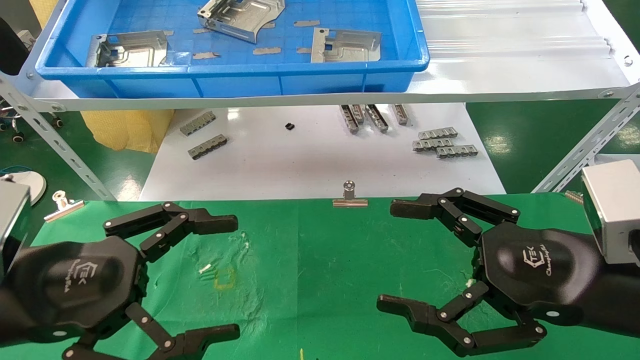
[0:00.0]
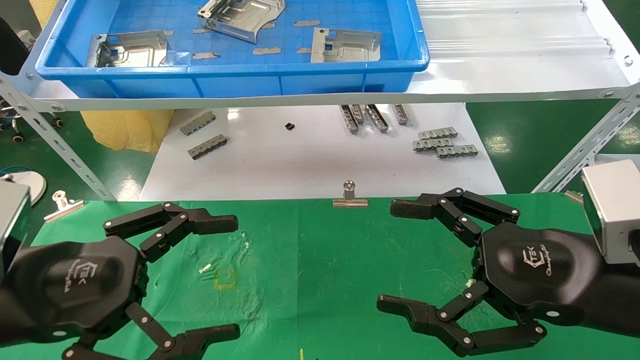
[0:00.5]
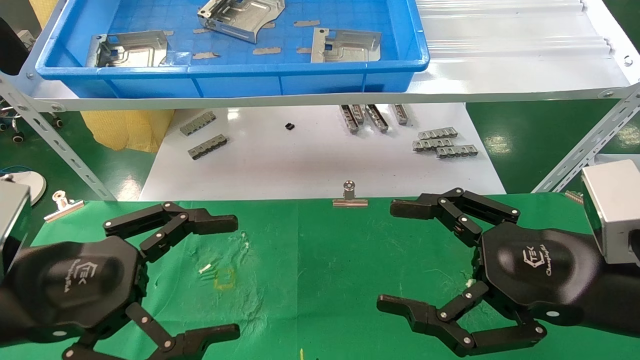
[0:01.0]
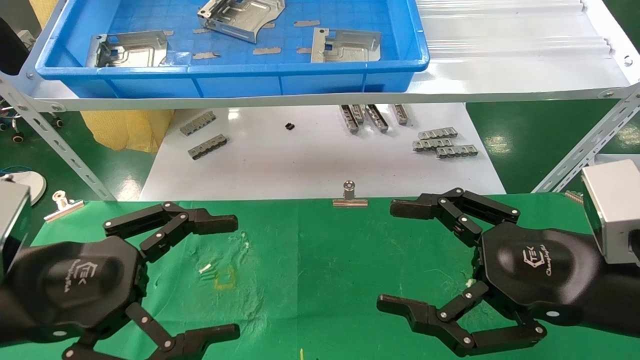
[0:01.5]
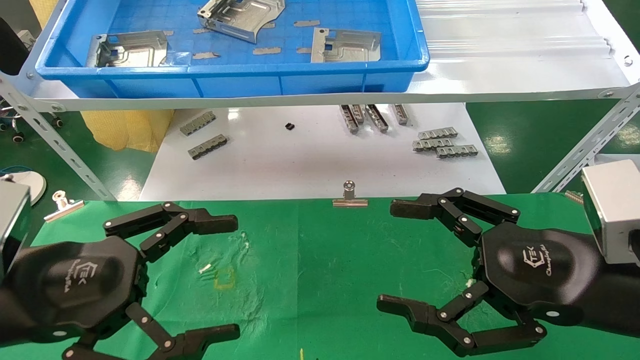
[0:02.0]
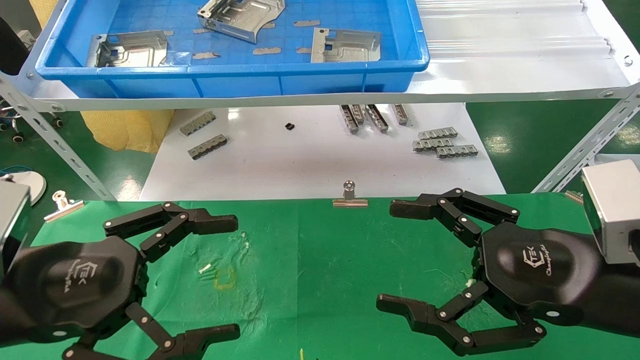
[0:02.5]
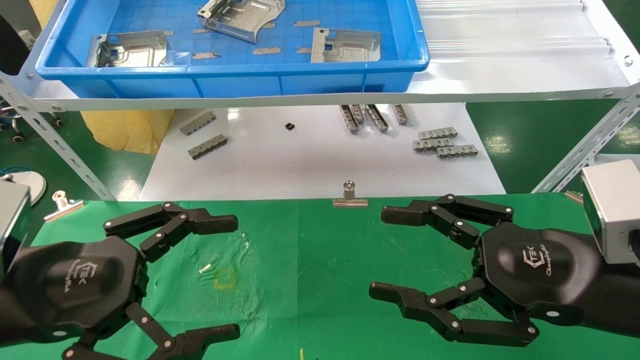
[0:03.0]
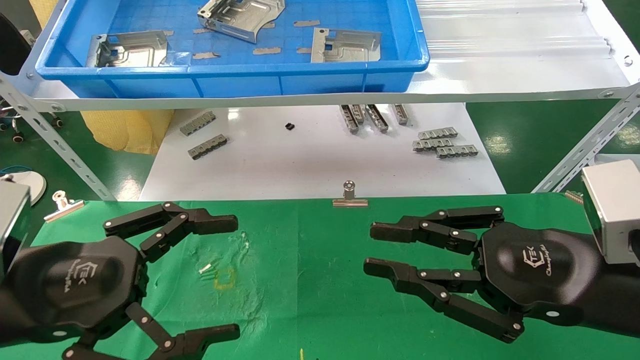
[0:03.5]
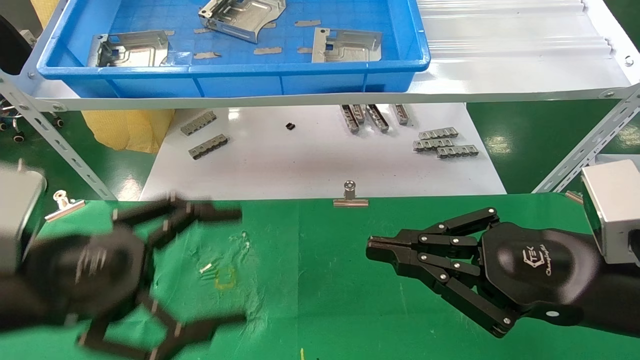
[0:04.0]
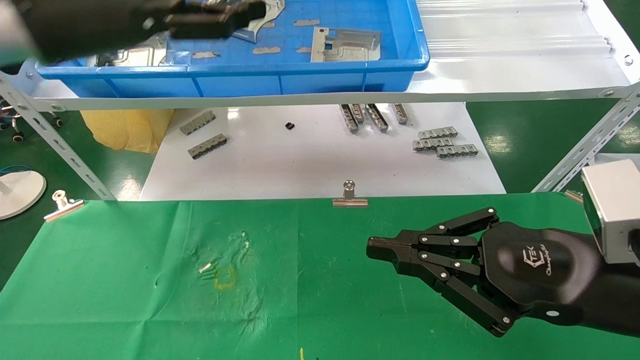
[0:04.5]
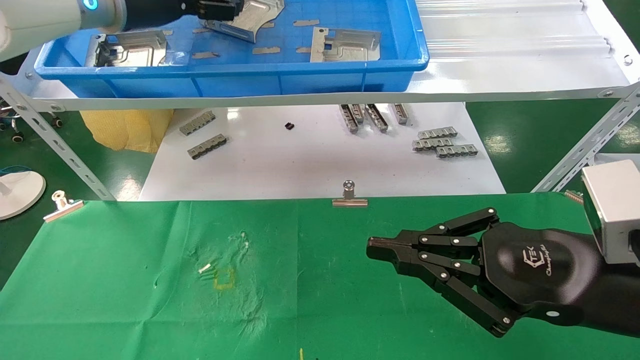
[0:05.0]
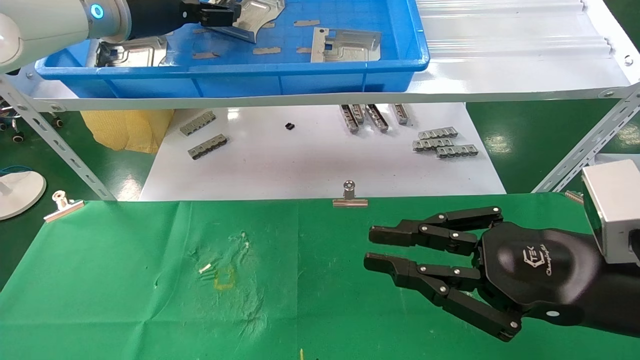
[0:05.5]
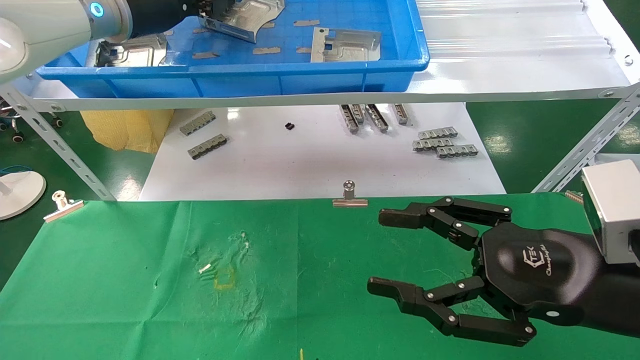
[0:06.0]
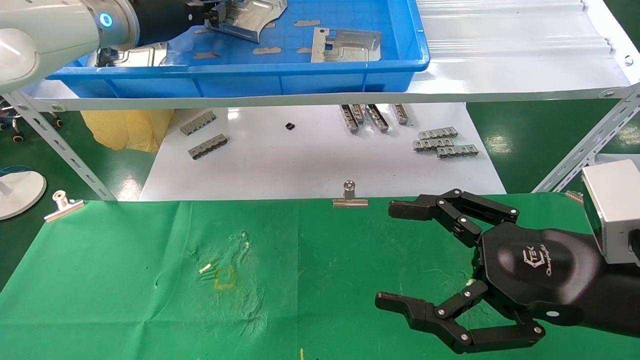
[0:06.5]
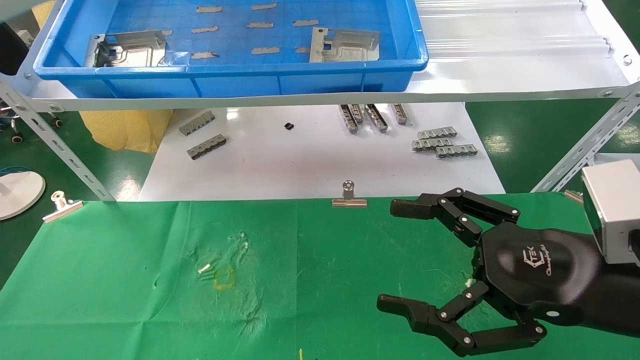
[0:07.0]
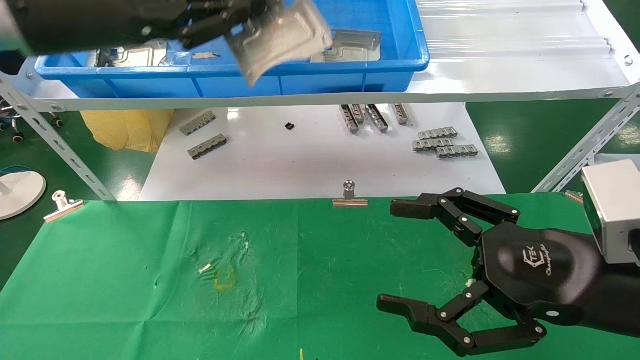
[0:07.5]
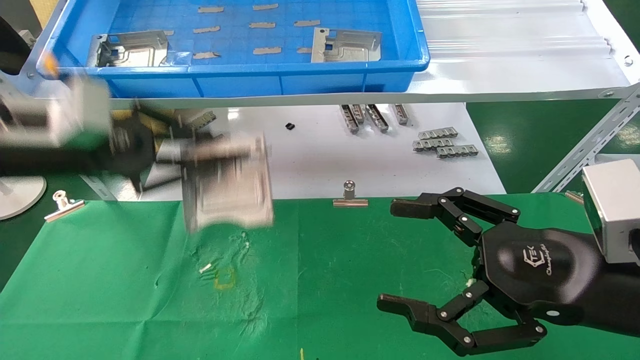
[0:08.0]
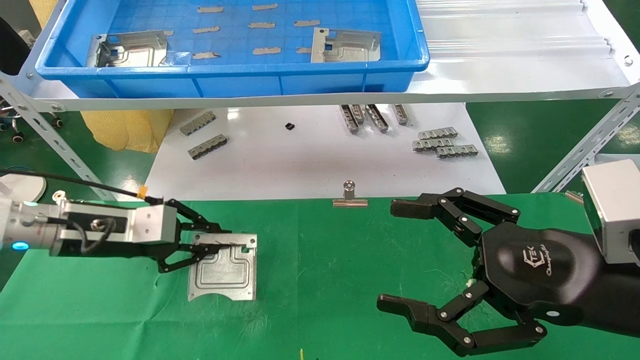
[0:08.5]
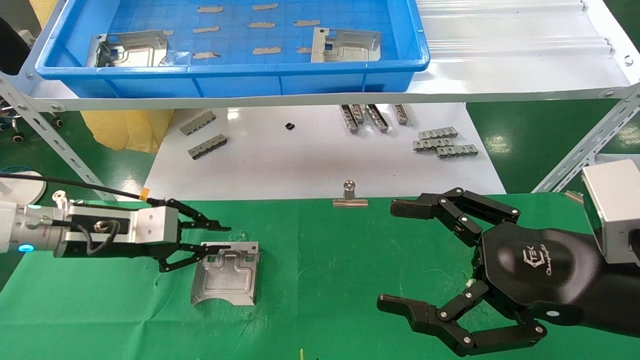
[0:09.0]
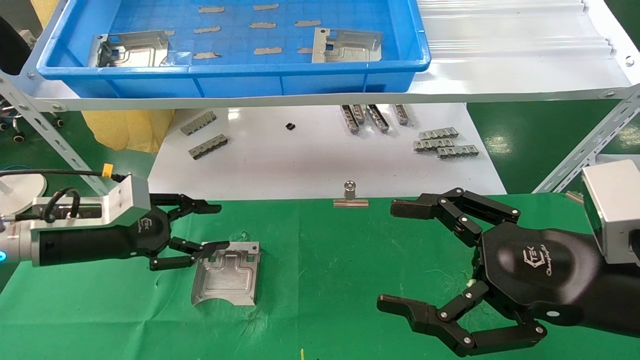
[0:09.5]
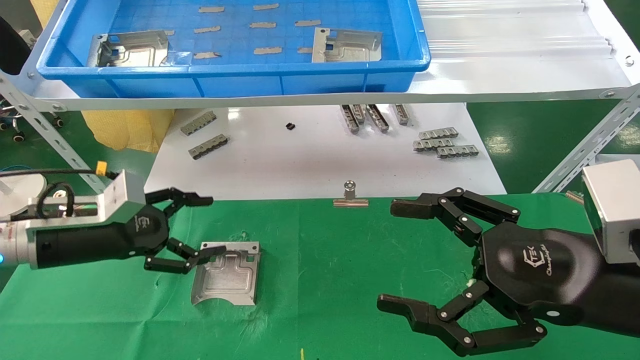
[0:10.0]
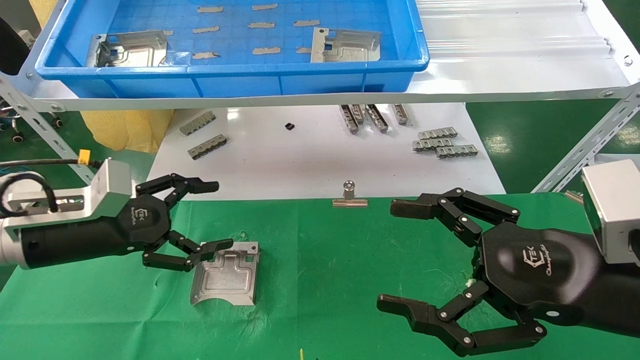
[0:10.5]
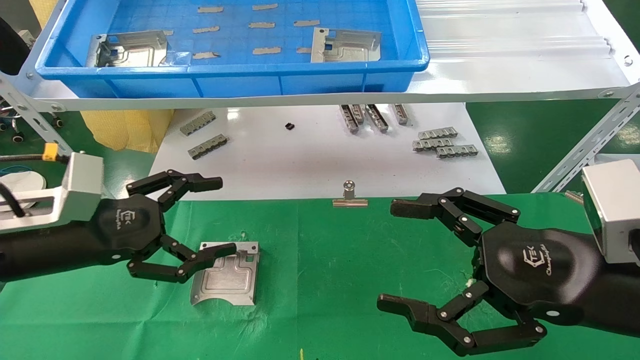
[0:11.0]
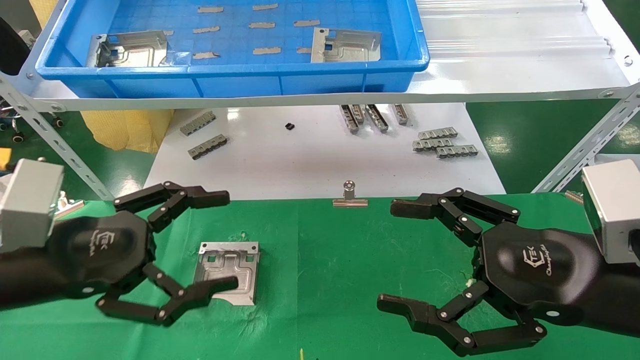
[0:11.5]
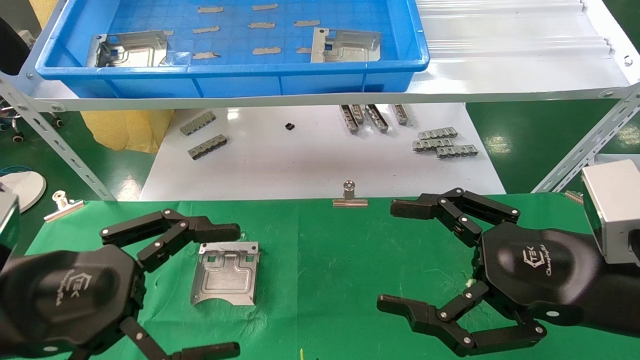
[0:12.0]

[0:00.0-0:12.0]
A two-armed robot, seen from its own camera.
Task of the whole recording: use the mechanical arm to pick up the parts and place them on the table.
Step, 0:04.5 to 0:06.0: Pick up the hard drive bracket from the feeding area.
Step, 0:06.5 to 0:09.0: Place the hard drive bracket into the box.
0:00.0 to 0:02.0: The two grippers keep their place.
0:02.0 to 0:04.0: The right gripper closes up.
0:04.0 to 0:06.0: The right gripper opens up. The left gripper goes approximately 30 cm forward and upward, and closes up.
0:06.0 to 0:08.0: The left gripper shifts approximately 20 cm downward, backward and to the left, and closes its fingers, while the right gripper opens up.
0:08.0 to 0:10.0: The left gripper heads downward, covering approximately 10 cm, and opens.
0:10.0 to 0:12.0: The left gripper heads backward, covering roughly 15 cm.

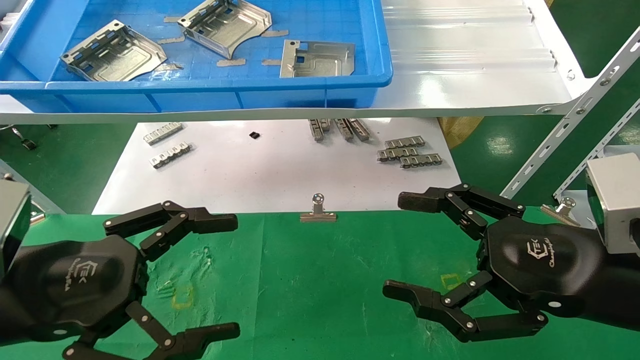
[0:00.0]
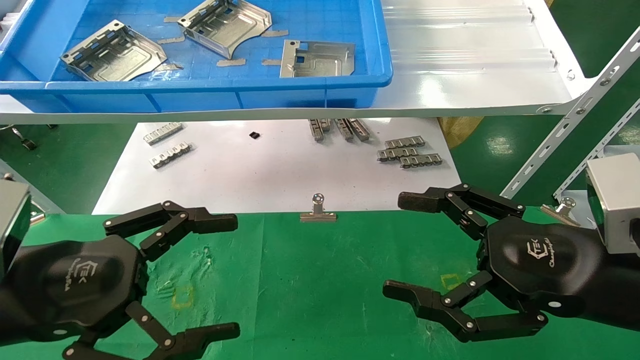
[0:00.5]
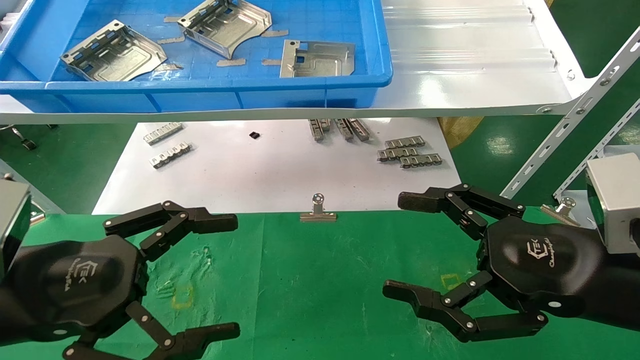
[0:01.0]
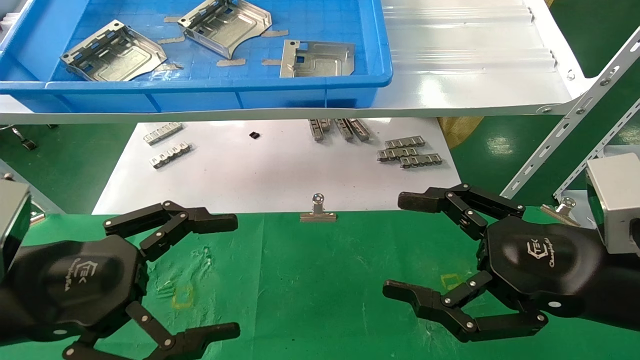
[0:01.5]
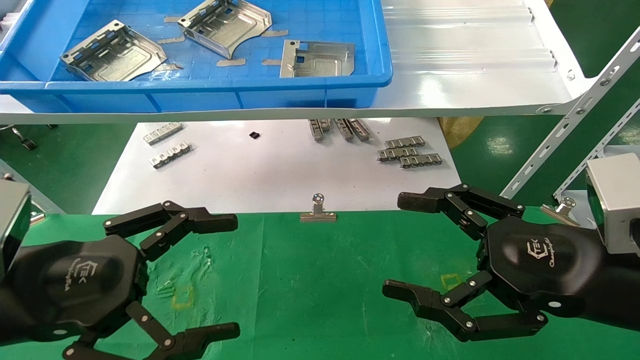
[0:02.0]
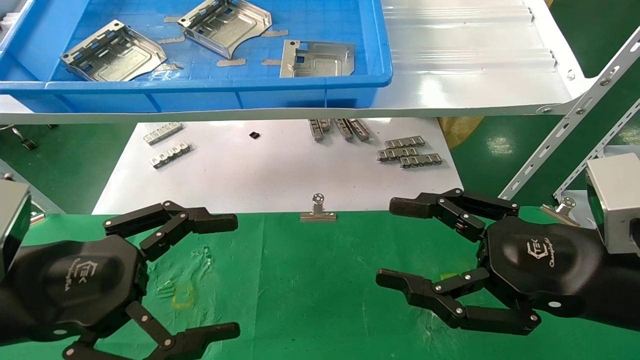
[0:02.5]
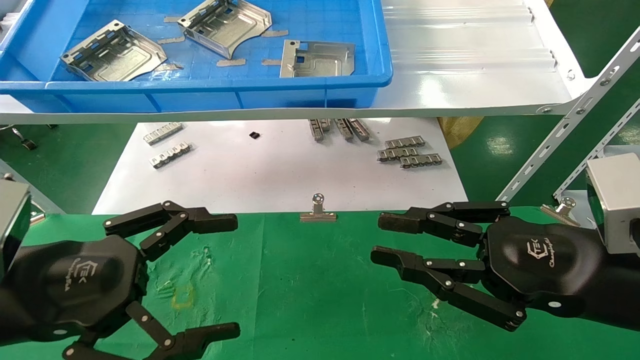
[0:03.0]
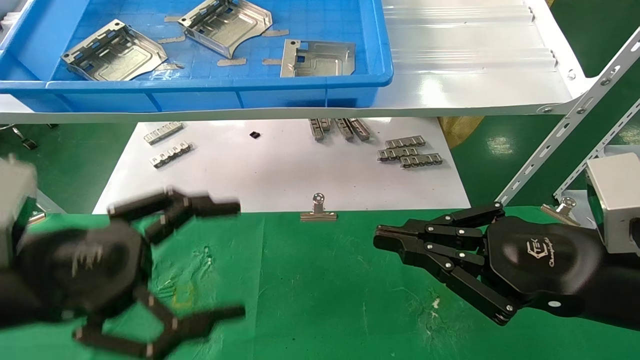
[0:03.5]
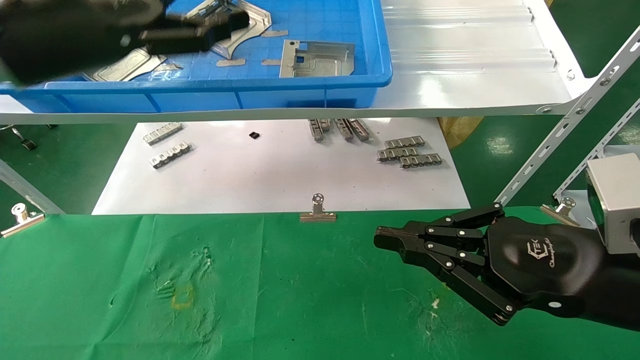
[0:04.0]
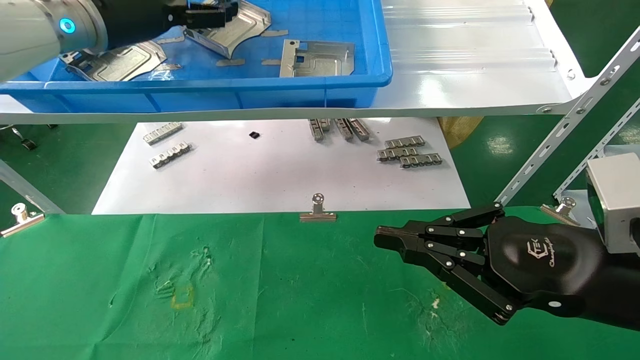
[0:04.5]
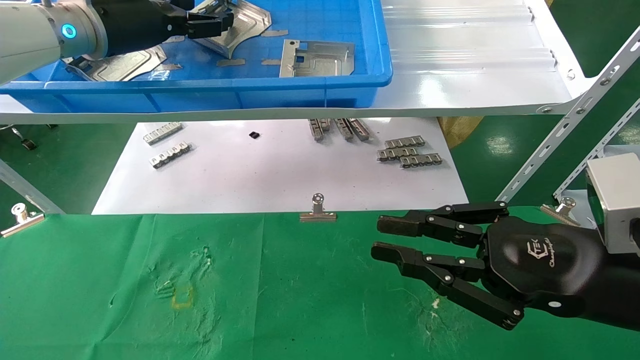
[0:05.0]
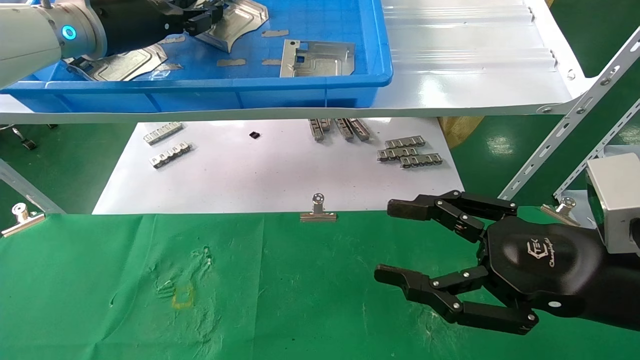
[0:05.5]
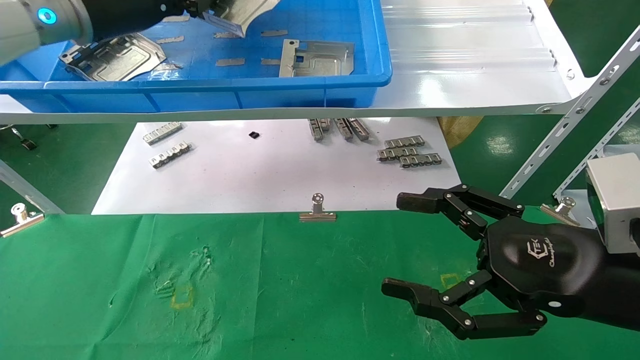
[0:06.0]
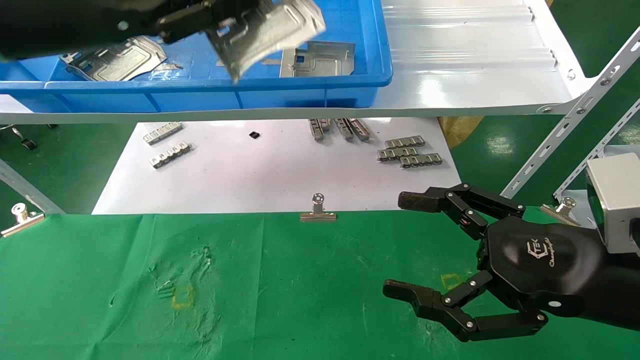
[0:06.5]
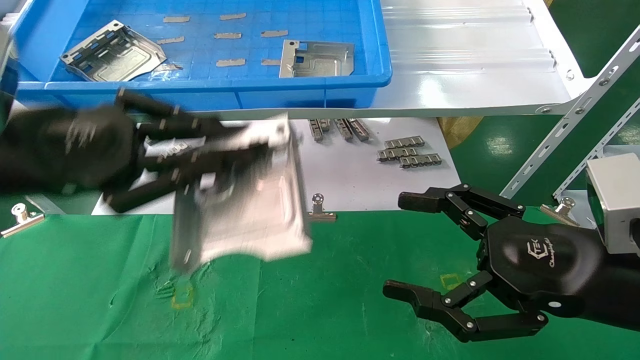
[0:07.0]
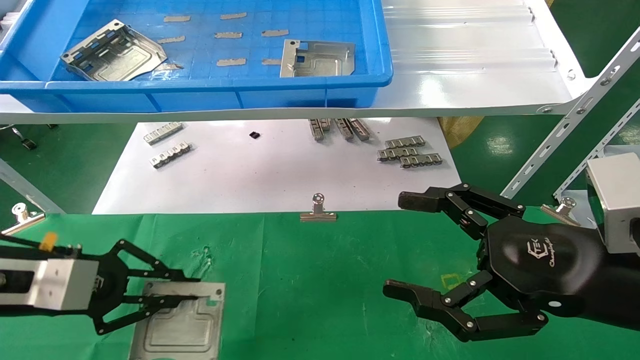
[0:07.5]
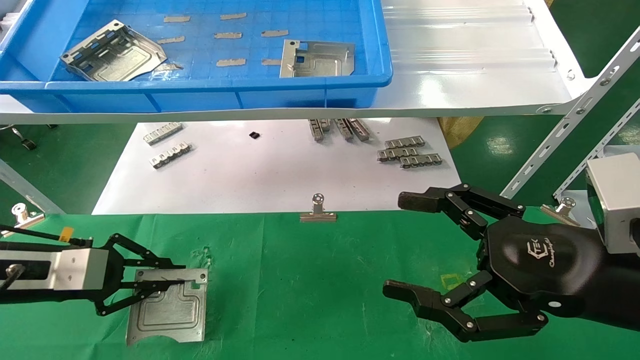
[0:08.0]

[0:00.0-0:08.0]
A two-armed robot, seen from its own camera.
Task of the whole recording: use the mechanical arm to pick up the parts and place them on the table.
Step, 0:04.0 to 0:05.5: Pick up the hard drive bracket from the feeding area.
0:00.0 to 0:02.0: The two grippers keep their place.
0:02.0 to 0:04.0: The right gripper closes. The left gripper is displaced upward and forward by roughly 25 cm.
0:04.0 to 0:06.0: The left gripper travels forward by roughly 5 cm, and closes its fingers; the right gripper opens its fingers.
0:06.0 to 0:08.0: The left gripper is displaced downward and to the left by approximately 30 cm.
